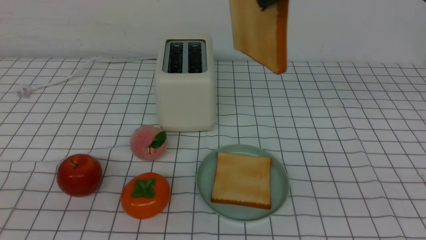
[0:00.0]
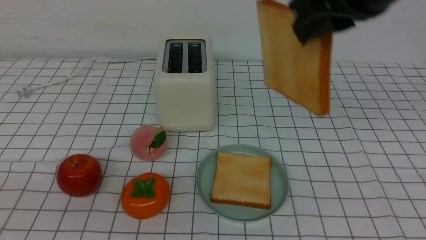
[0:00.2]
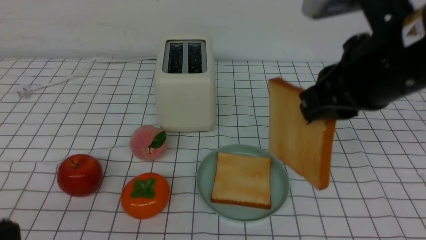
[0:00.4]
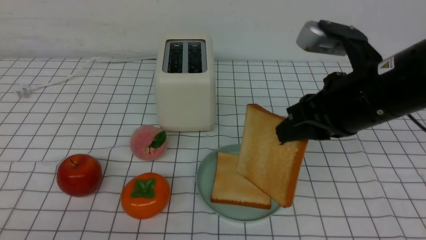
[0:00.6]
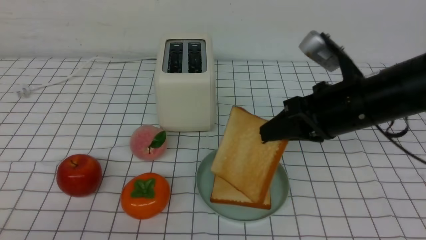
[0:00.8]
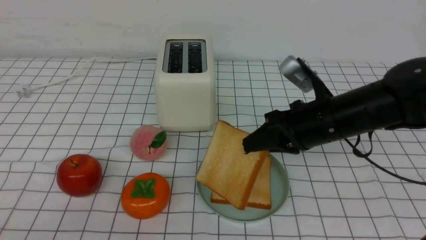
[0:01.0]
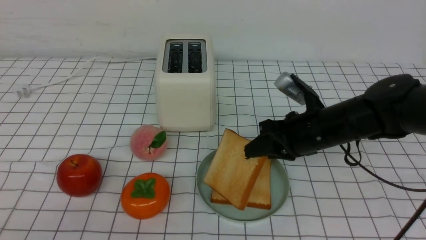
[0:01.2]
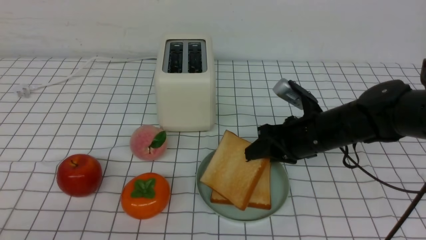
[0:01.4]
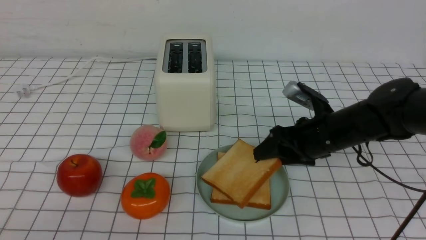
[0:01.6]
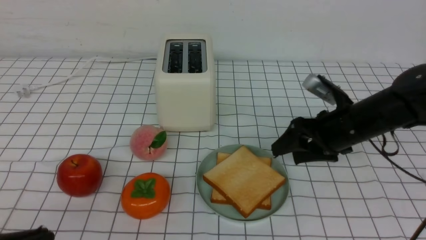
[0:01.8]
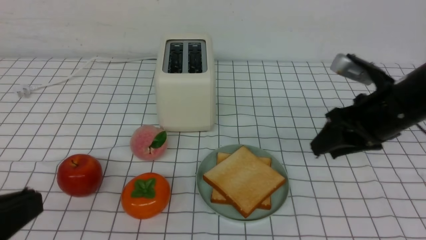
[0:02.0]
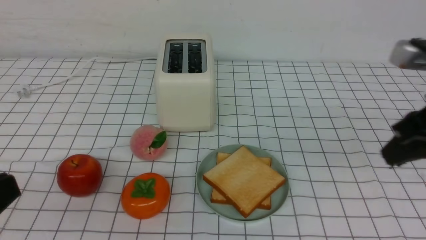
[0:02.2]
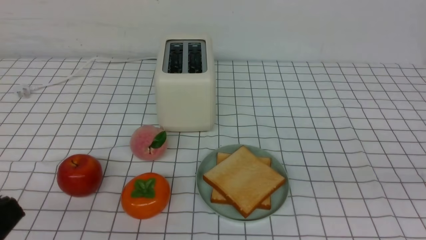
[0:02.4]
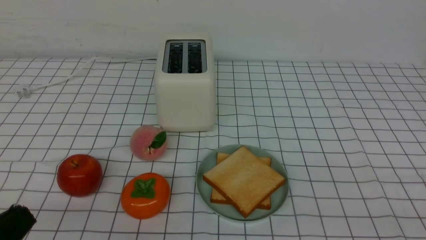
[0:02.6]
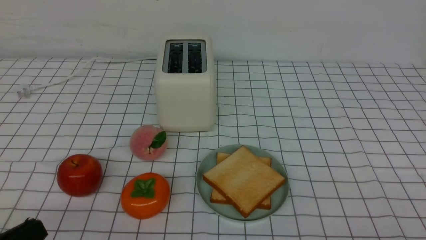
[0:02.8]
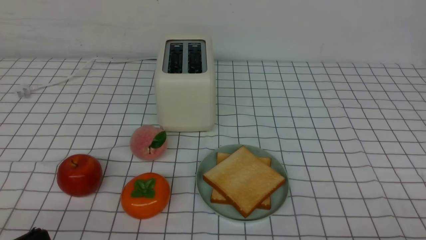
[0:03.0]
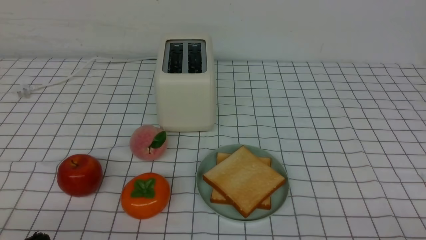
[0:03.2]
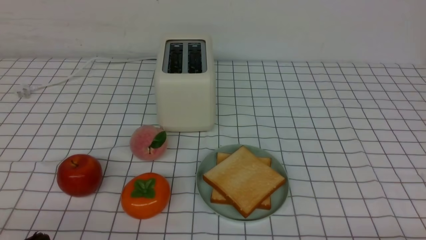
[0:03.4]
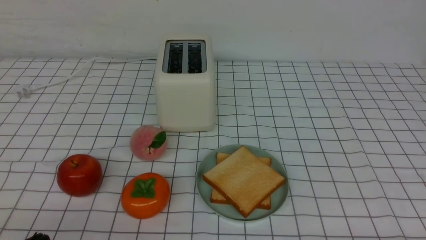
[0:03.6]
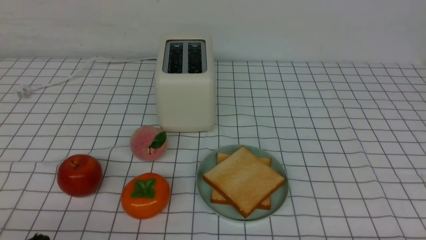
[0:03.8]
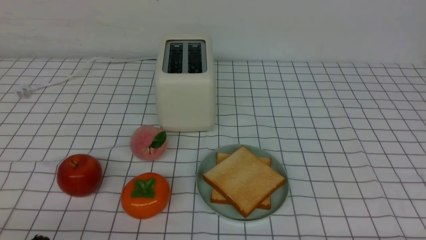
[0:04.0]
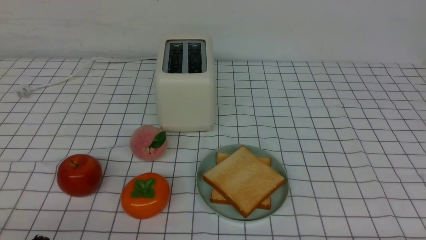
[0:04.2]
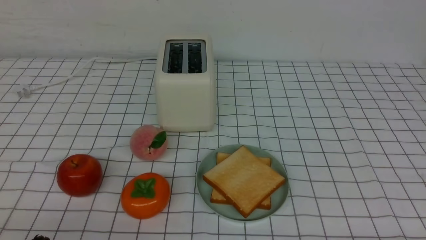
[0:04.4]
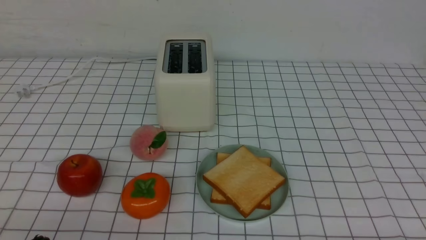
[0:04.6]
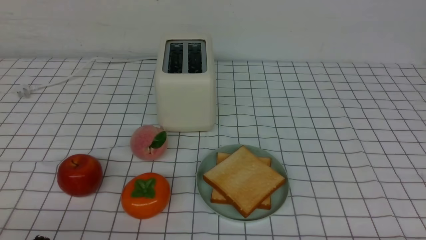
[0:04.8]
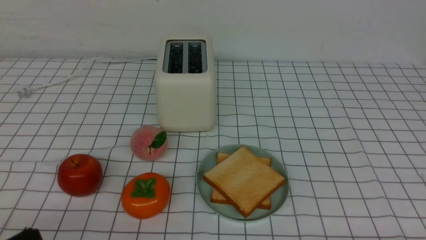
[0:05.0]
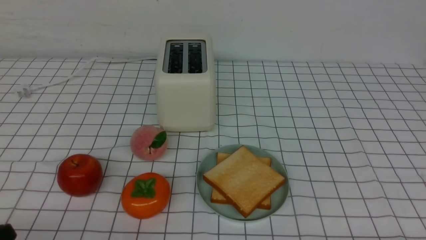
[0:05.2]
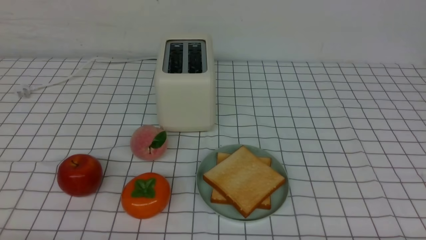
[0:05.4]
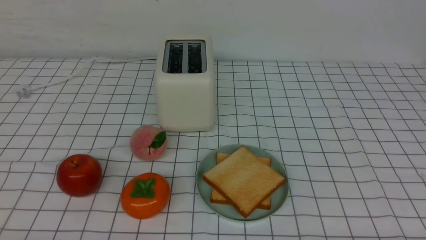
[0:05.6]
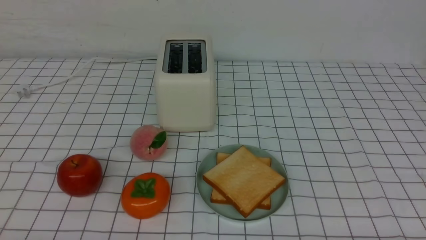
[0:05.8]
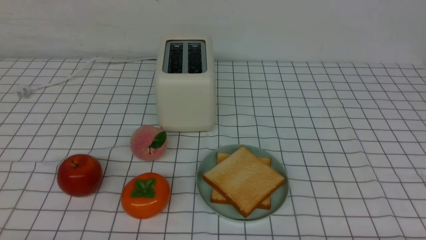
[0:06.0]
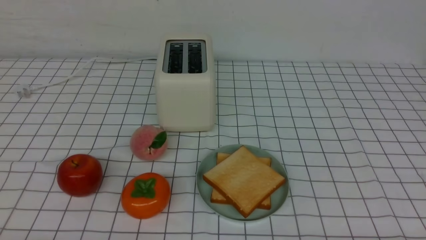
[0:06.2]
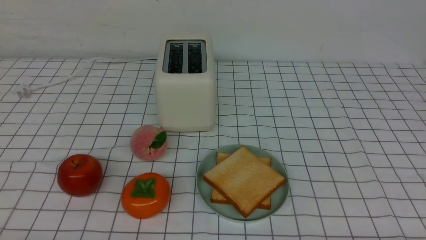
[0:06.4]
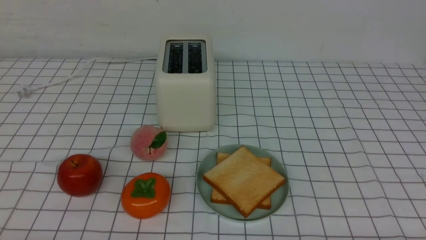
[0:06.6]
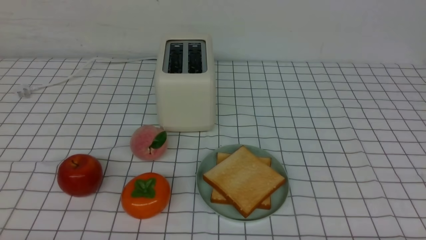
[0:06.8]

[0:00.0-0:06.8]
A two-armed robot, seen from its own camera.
Task of the whole recording: take toasted bread from bread machine on white checkered table place on plate.
Step, 0:00.0 to 0:01.8: use the right arm to put a slice of bread into the plate.
0:00.0 to 0:01.4: The right gripper heads downward, covering roughly 25 cm.
0:01.4 to 0:02.8: The right gripper heads backward and to the right, covering approximately 35 cm, and closes. The left gripper is displaced downward by about 5 cm.
0:05.4 to 0:06.8: Neither gripper changes place.
